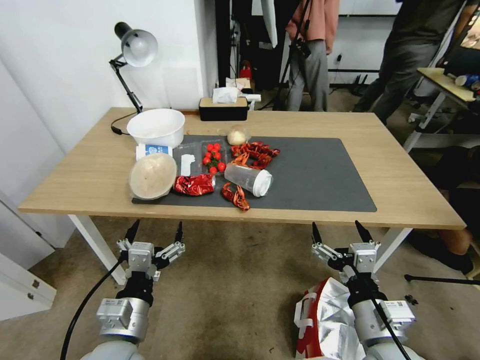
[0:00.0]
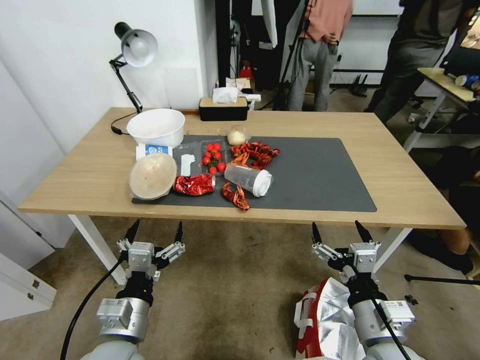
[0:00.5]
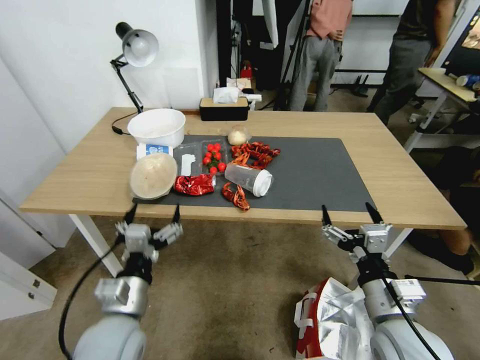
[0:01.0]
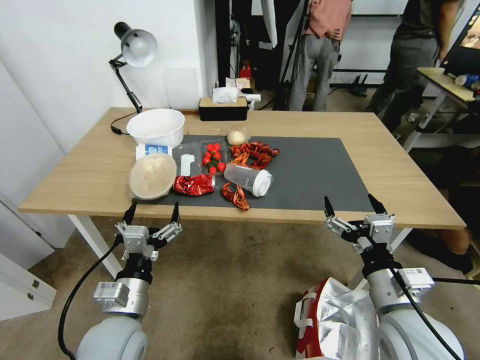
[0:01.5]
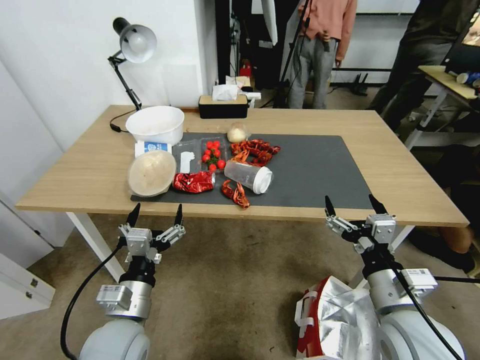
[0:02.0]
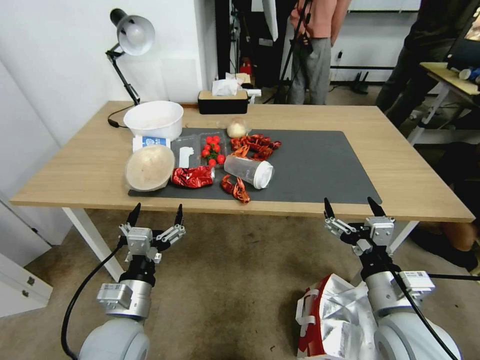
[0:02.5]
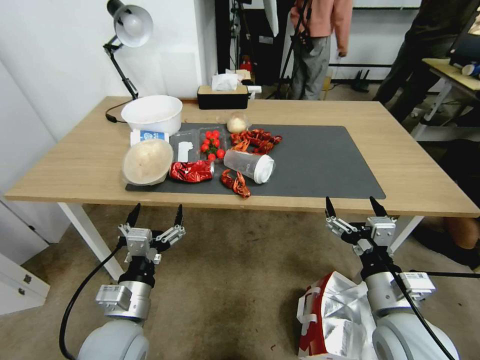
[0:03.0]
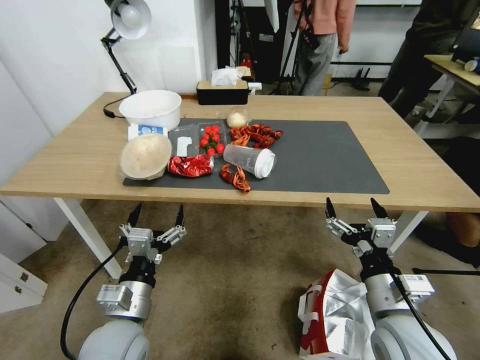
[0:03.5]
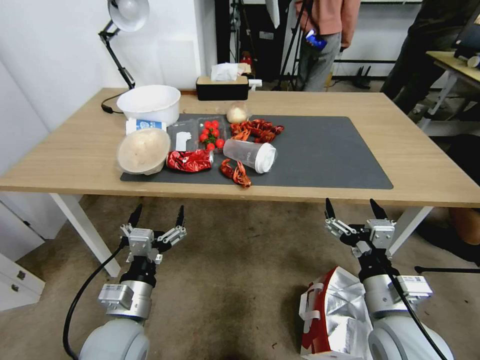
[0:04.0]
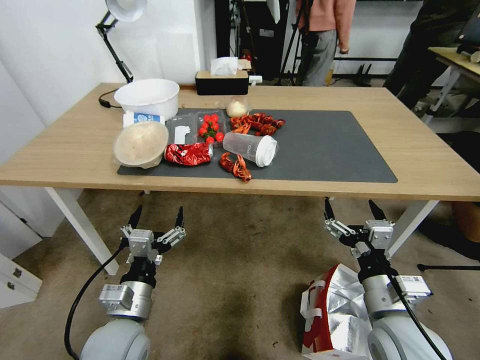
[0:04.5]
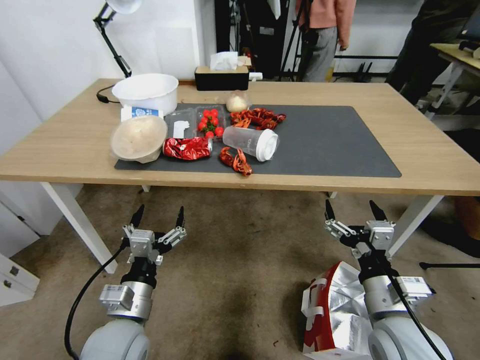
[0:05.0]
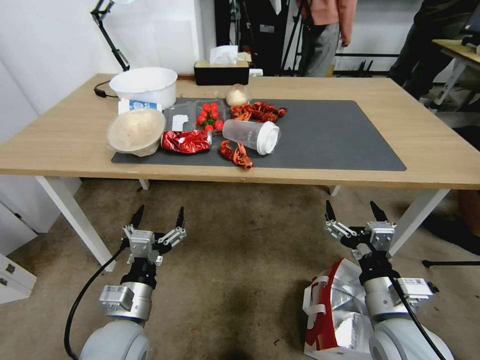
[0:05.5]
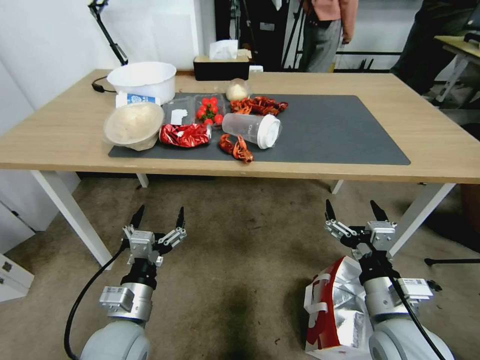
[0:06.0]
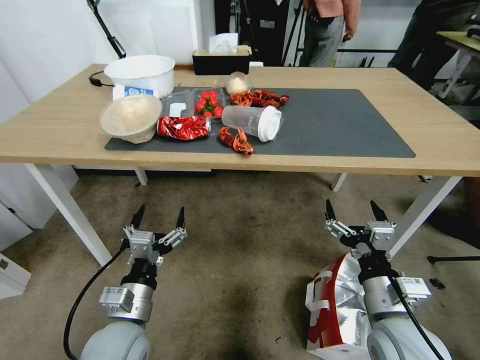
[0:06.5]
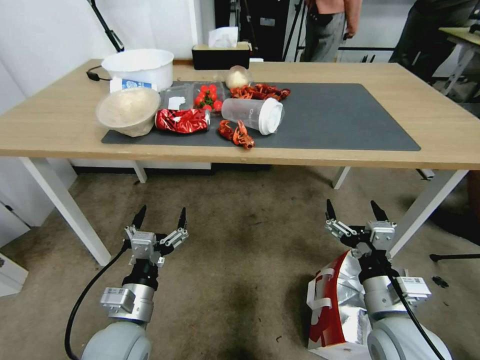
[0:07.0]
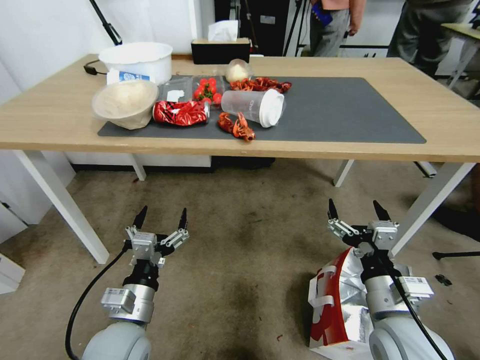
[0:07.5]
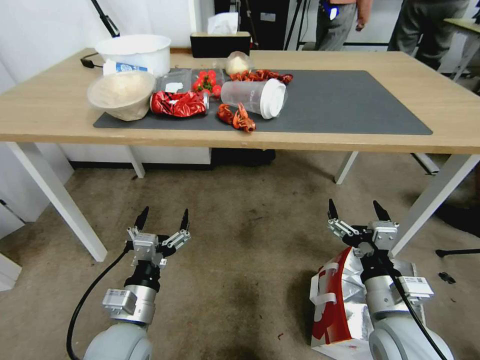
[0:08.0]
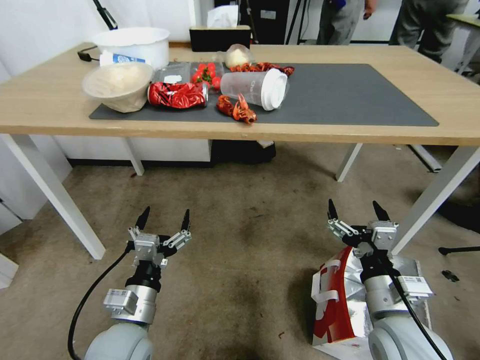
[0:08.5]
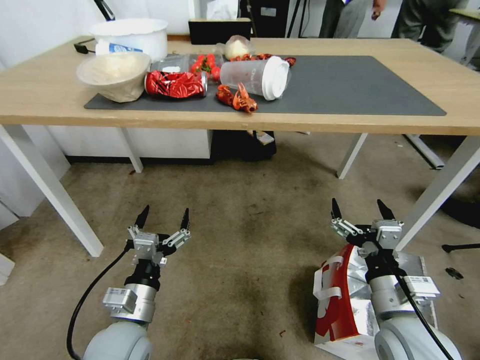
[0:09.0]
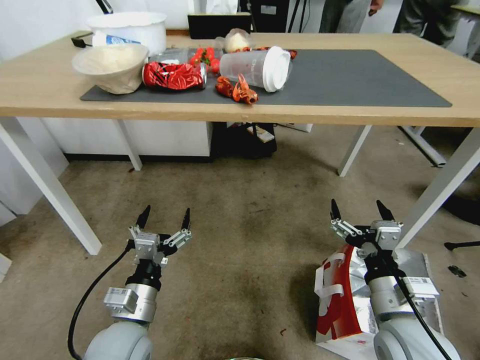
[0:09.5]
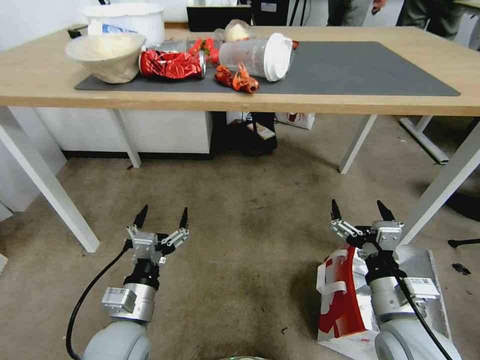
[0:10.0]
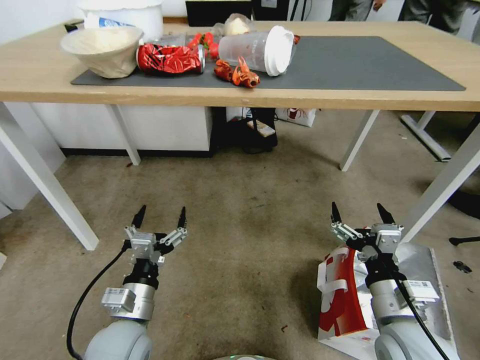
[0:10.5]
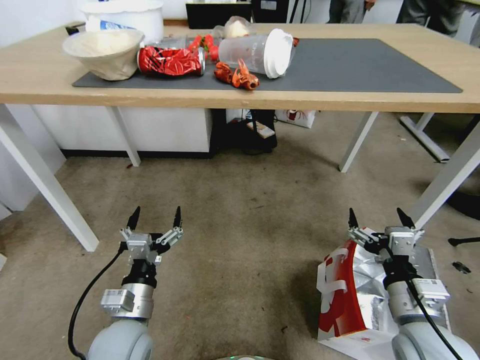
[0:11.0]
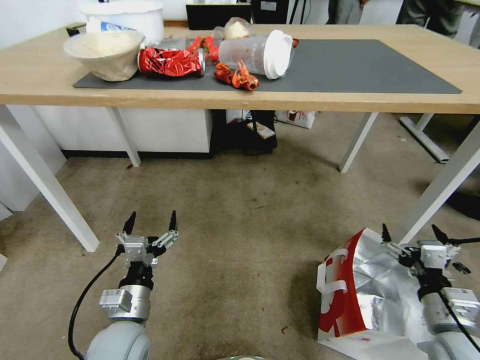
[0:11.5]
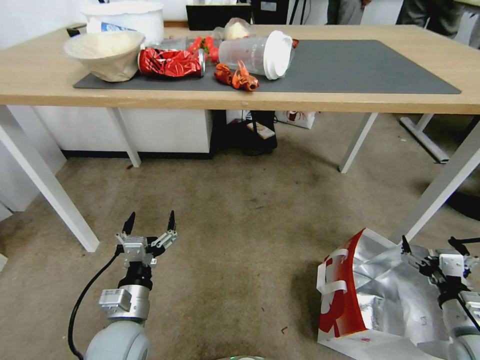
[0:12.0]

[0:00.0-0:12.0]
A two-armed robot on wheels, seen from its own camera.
Task of the whole recording: Pick up the food delivery bag from the floor and place it on the table.
0:10.0 to 0:12.0: The right gripper goes approximately 20 cm to the right and downward.

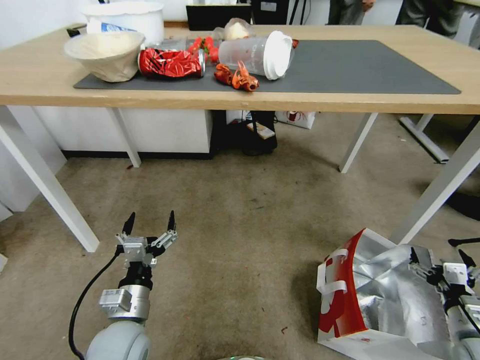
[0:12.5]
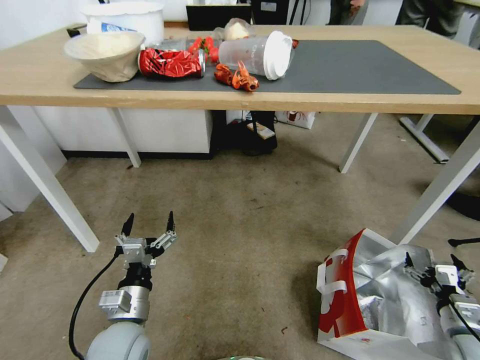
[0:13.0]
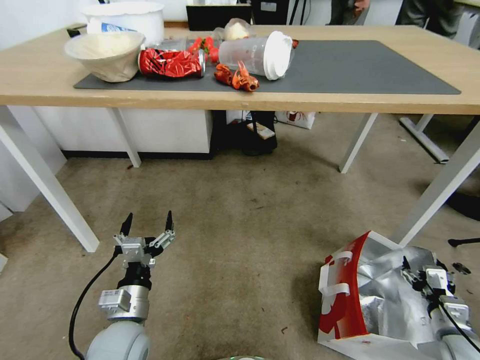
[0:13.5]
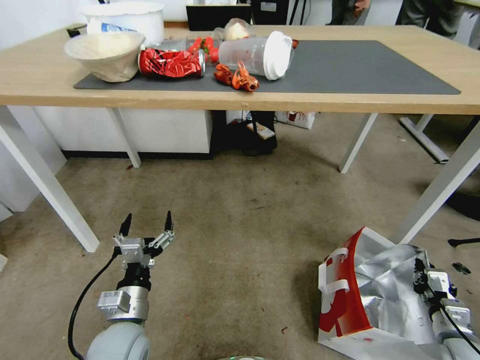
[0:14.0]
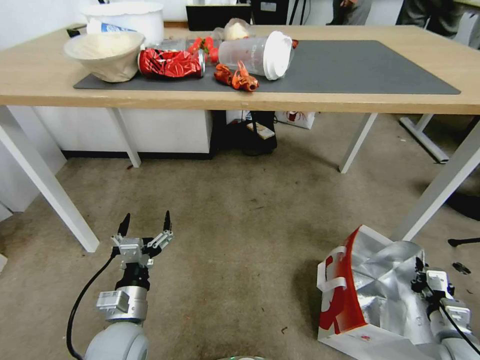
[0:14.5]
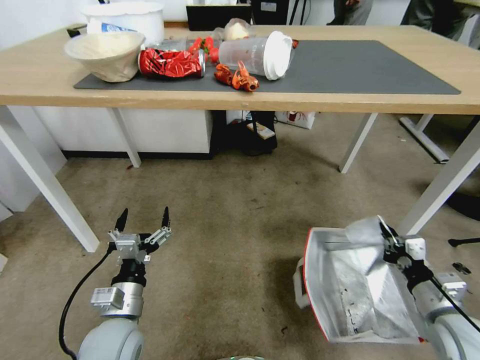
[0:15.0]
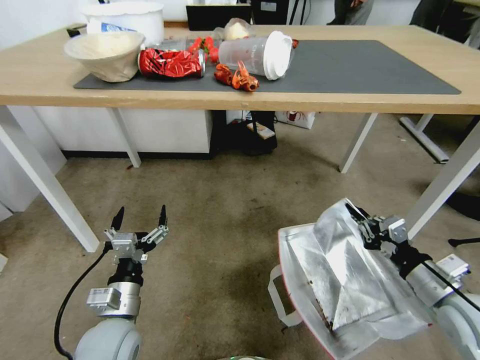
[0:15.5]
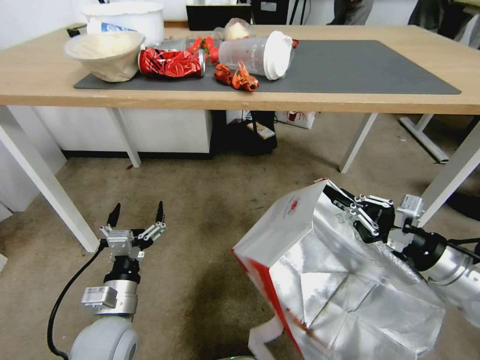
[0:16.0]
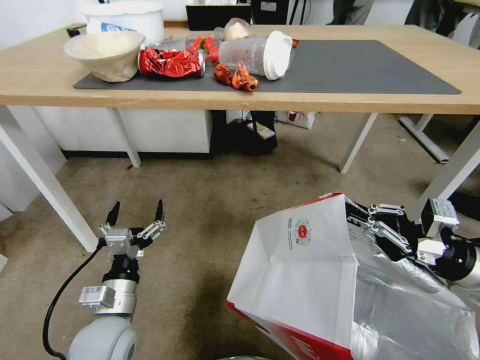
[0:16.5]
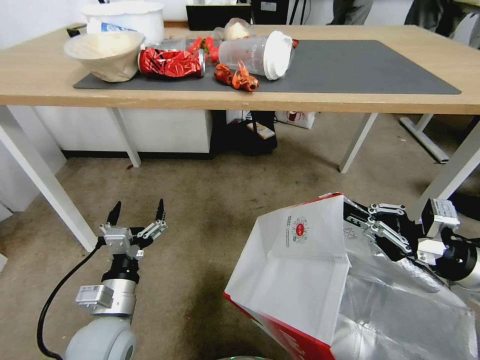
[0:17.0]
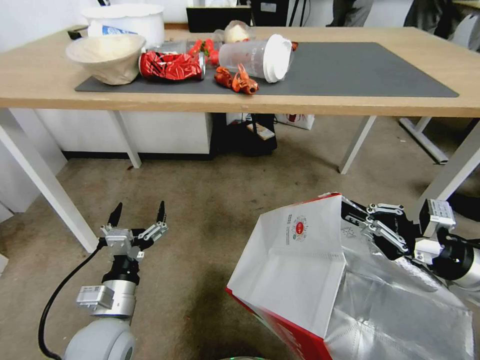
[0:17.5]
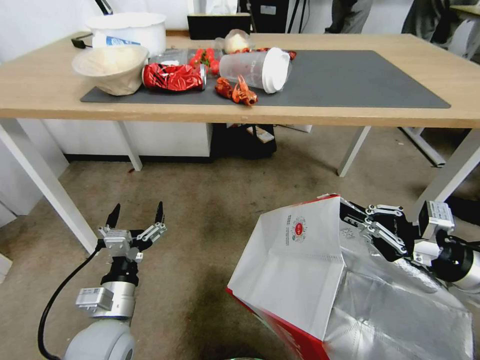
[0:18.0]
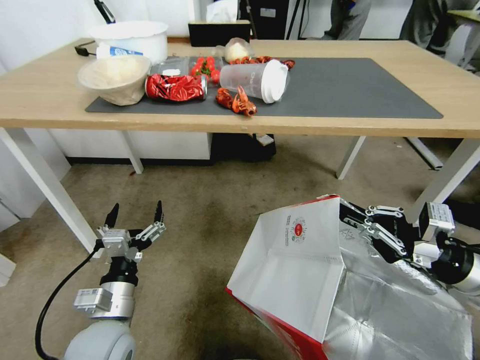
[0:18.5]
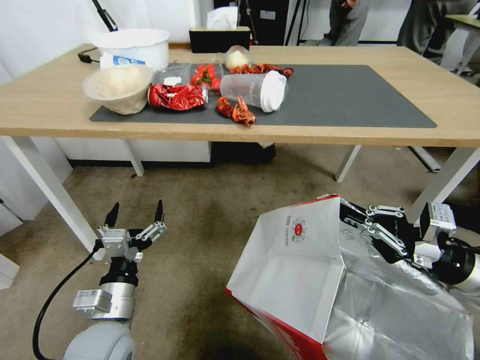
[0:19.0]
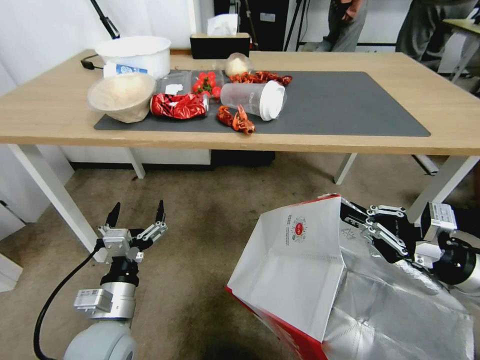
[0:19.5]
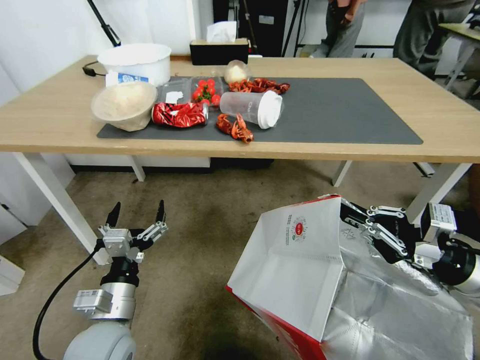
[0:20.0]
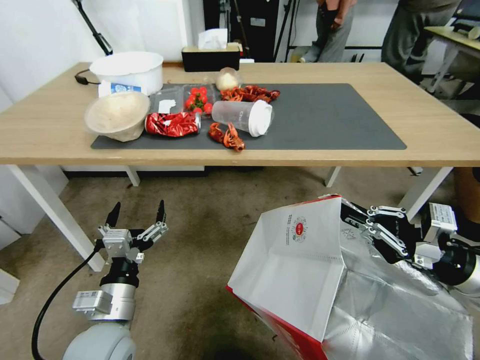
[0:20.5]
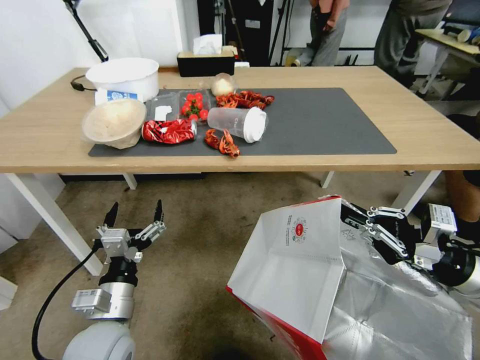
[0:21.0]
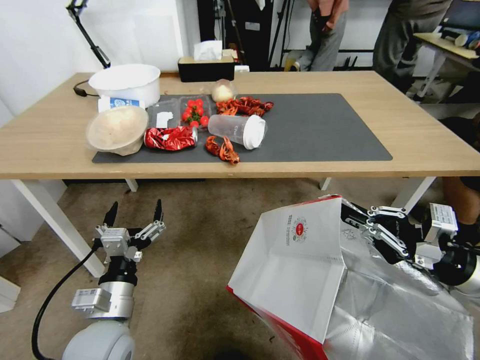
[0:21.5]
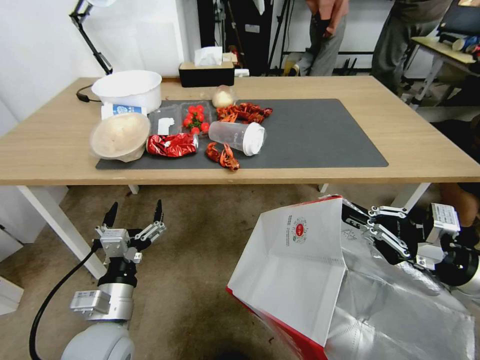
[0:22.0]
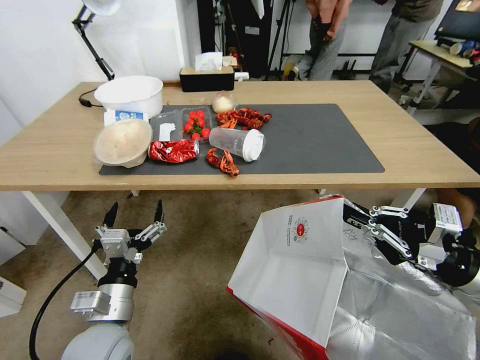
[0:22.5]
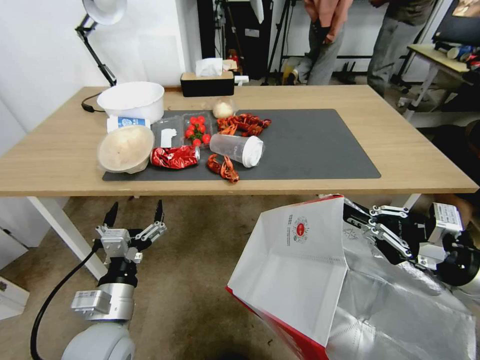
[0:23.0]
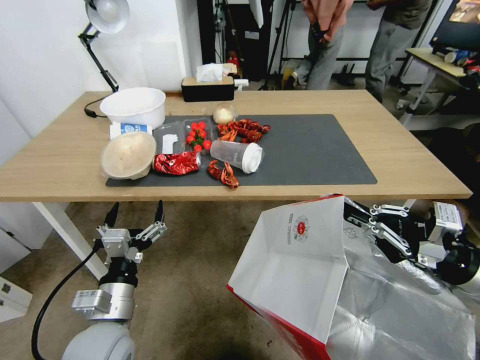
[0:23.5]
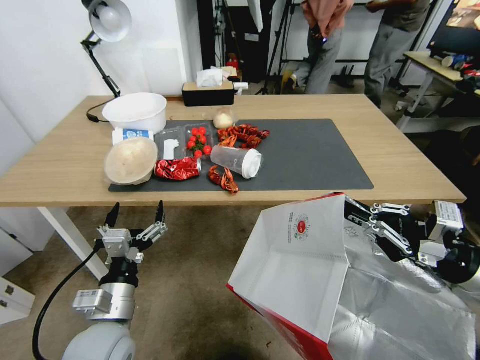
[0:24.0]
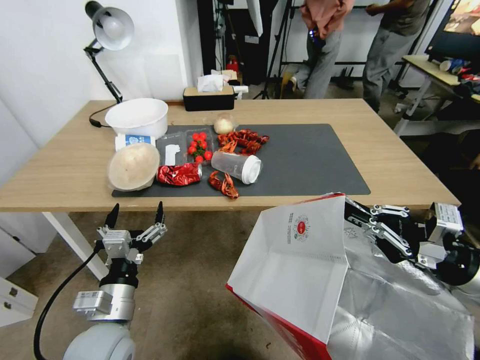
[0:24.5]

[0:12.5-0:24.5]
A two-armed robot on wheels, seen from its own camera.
Task of the whole recording: Pick up the food delivery bag from the floor and place it on the table.
0:12.5 to 0:14.5: The right gripper closes up.
0:14.5 to 0:16.5: The right gripper shifts roughly 25 cm upward.

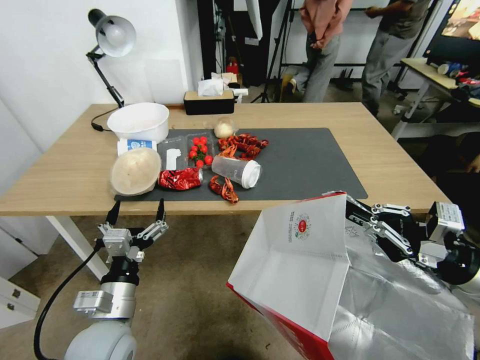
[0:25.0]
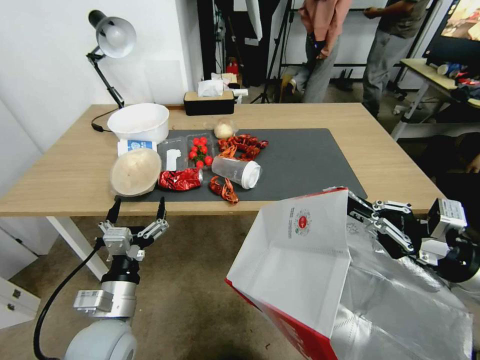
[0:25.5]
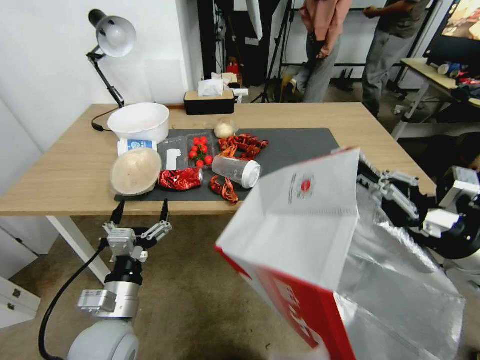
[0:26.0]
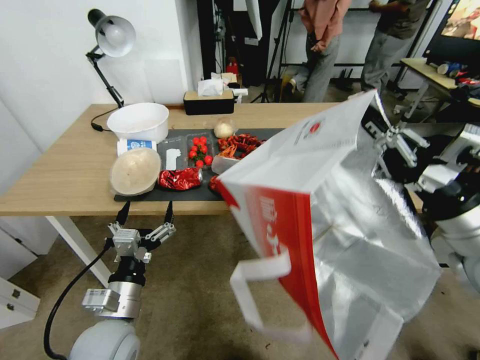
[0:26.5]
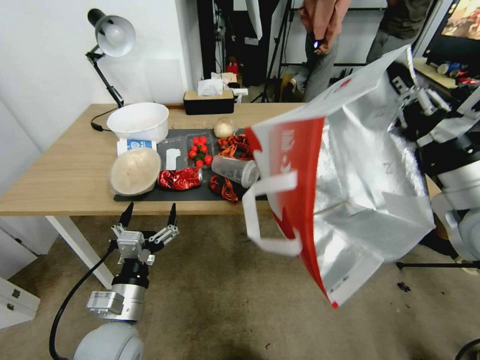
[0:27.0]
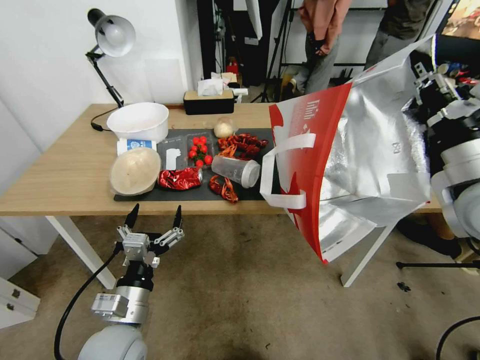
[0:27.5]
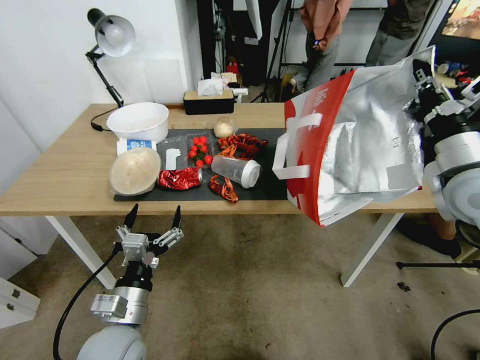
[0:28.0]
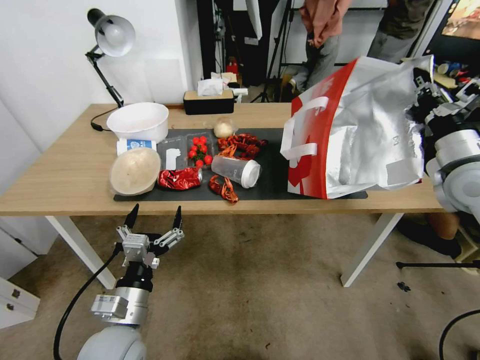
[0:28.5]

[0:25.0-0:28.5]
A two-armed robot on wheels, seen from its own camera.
Task of the whole recording: Pick up the food delivery bag from the floor and place it on the table.
0:25.0 to 0:27.0: The right gripper is displaced upward, forward and to the left by about 10 cm.
0:27.0 to 0:28.5: The right gripper goes about 10 cm forward and to the right.
